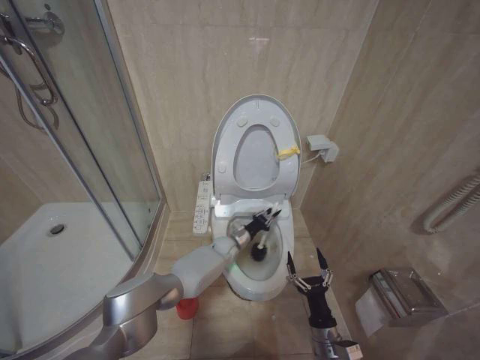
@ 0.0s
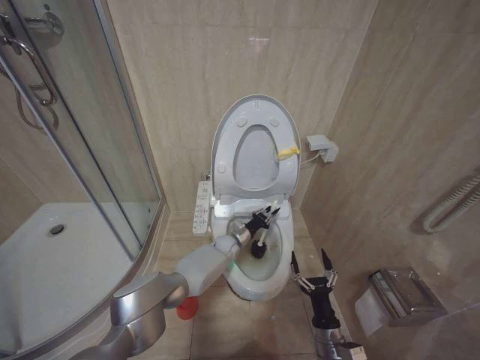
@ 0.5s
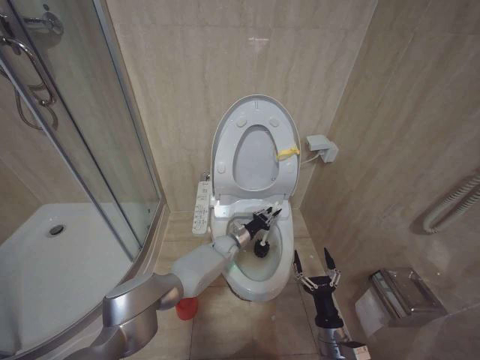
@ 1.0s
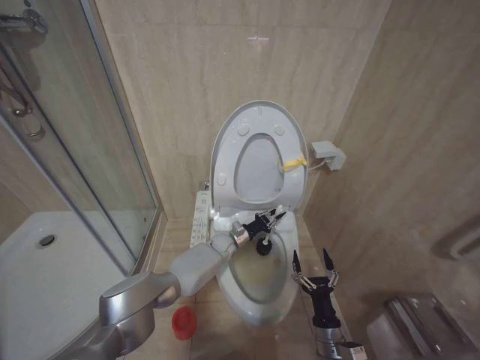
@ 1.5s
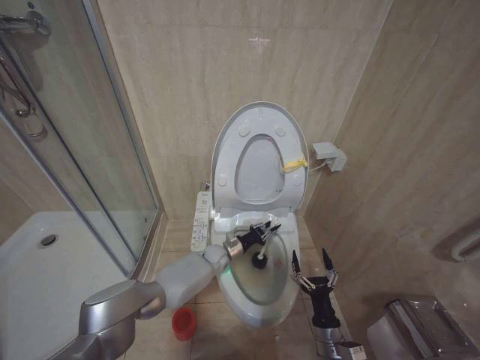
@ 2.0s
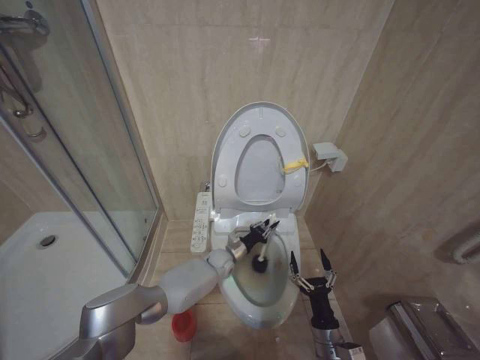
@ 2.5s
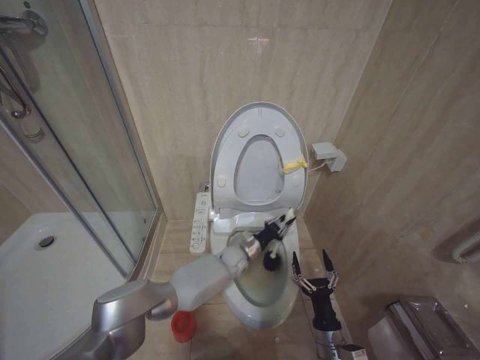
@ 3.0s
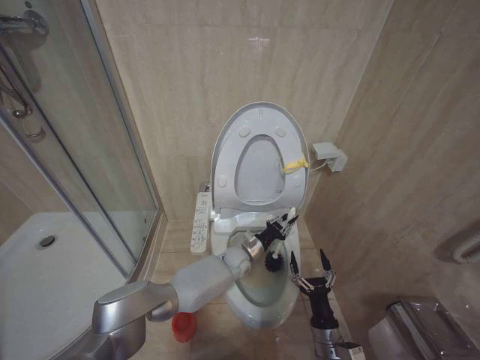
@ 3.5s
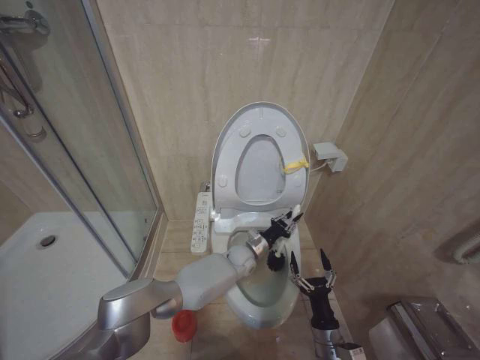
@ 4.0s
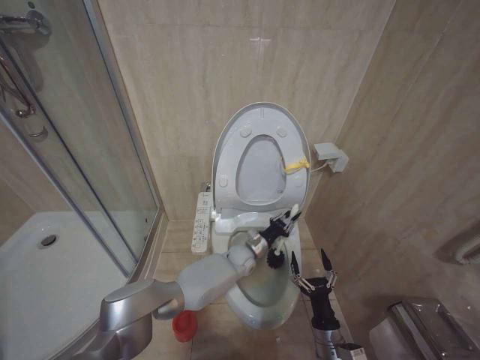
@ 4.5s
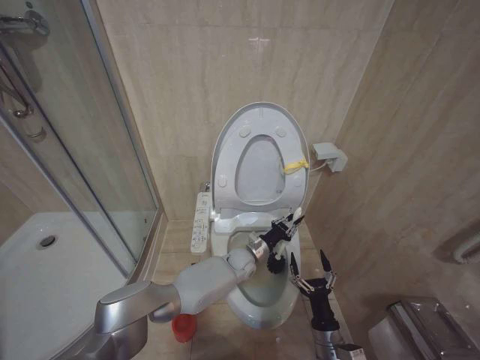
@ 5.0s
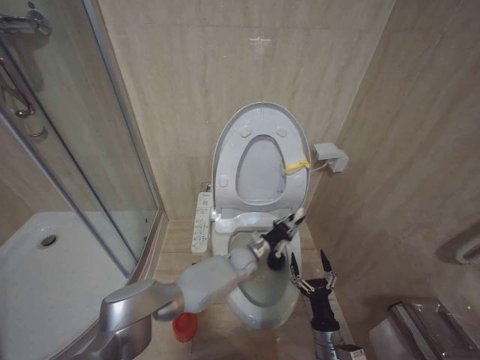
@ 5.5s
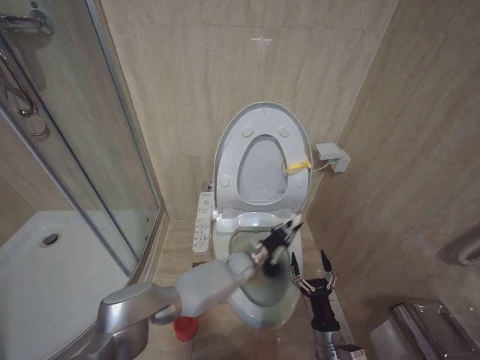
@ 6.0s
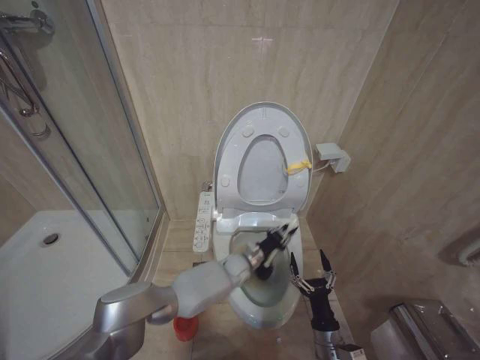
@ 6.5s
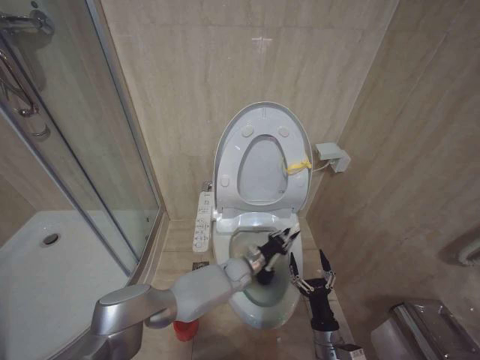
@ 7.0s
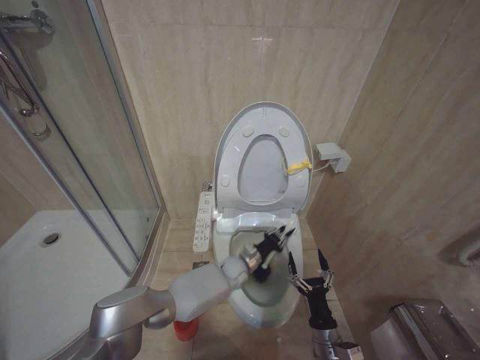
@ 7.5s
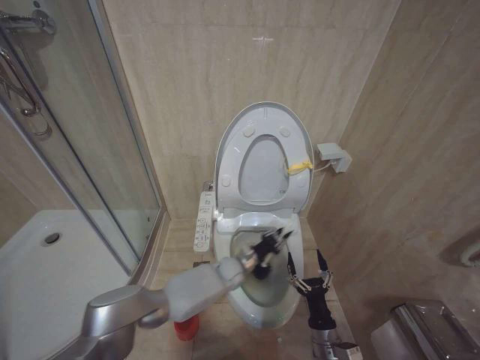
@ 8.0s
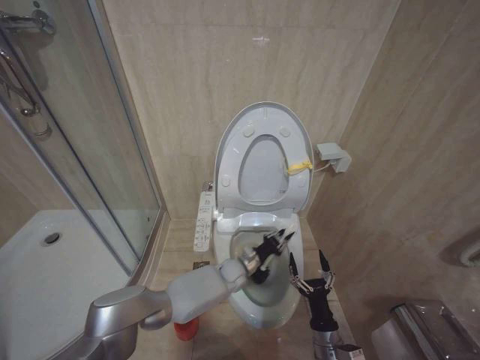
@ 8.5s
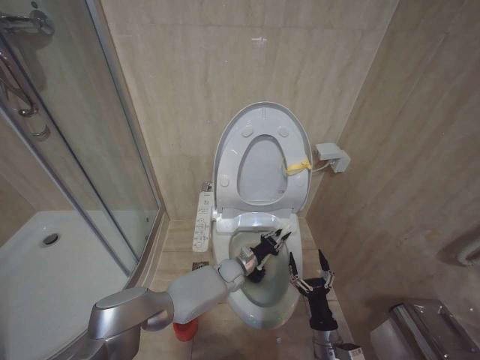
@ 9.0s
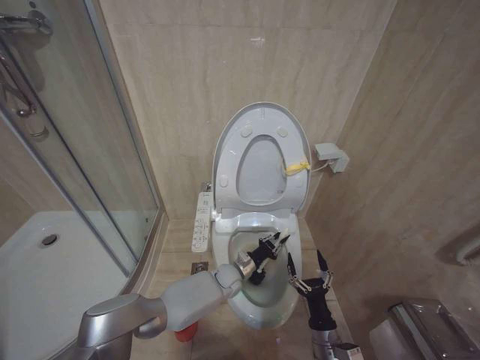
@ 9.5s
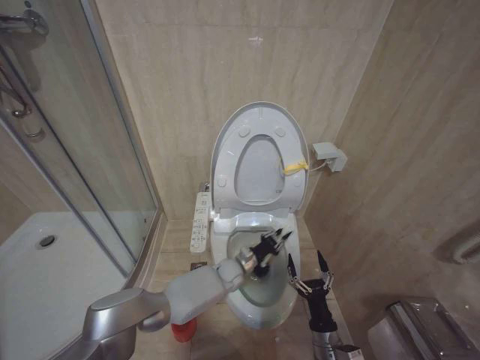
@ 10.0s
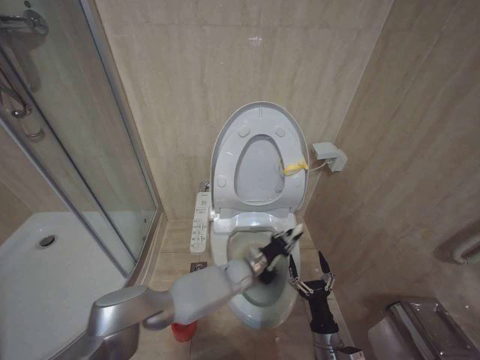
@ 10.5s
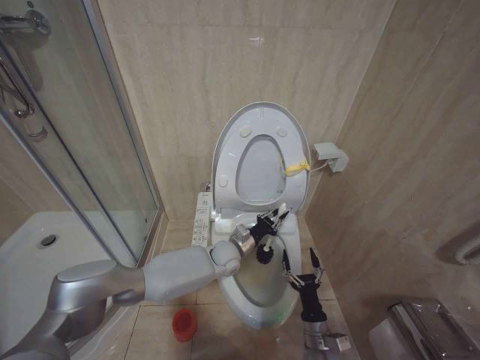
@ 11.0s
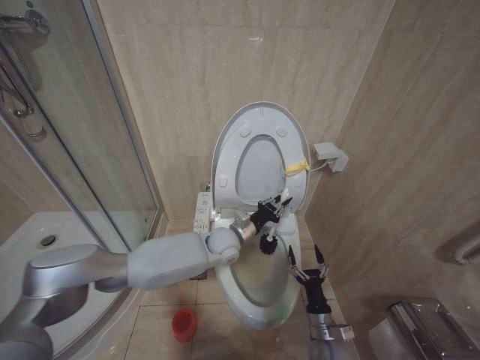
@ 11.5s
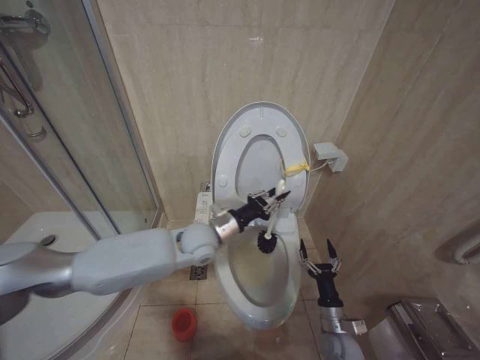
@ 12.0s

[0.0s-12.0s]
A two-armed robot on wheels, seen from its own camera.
Task of the whole recording: Open the toilet lid, clean the toilet bowl with a toilet brush, close the toilet lid, and flush.
0.0s to 2.0s: The grippers move only a little.
2.0s to 4.0s: The left gripper goes roughly 5 cm to the right.
4.0s to 6.0s: The grippers move only a little.
6.0s to 8.0s: There are only small adjustments of the grippers.
10.0s to 12.0s: The right gripper changes place by about 5 cm. The left gripper is displaced upward by about 20 cm.

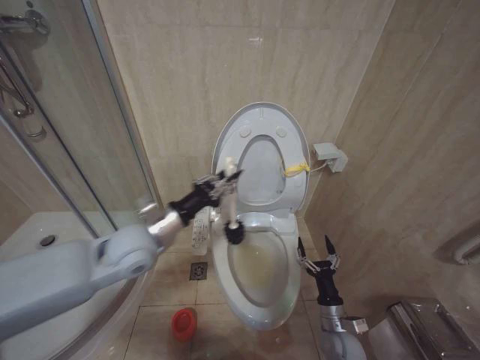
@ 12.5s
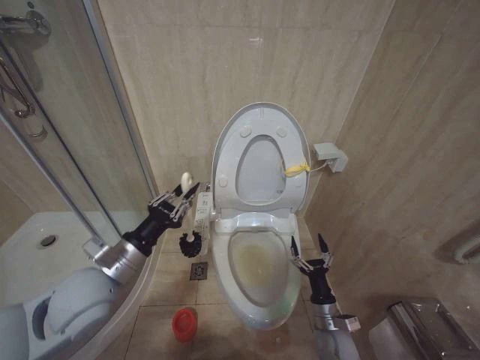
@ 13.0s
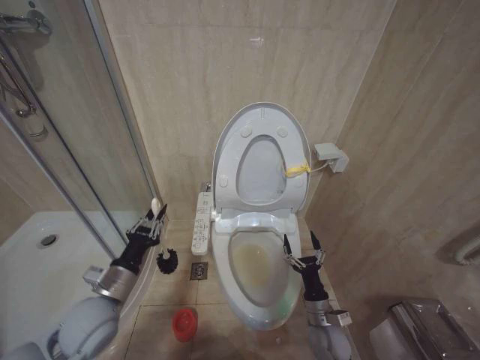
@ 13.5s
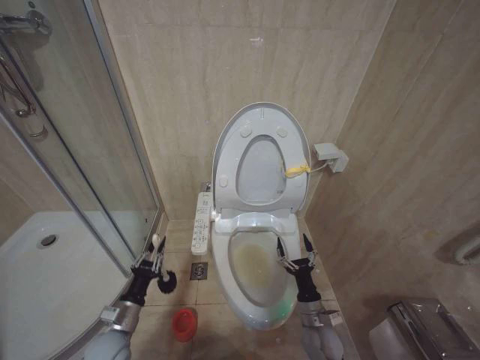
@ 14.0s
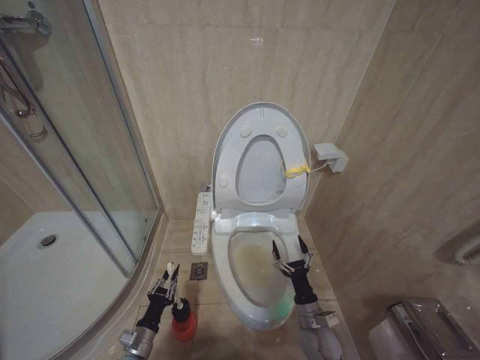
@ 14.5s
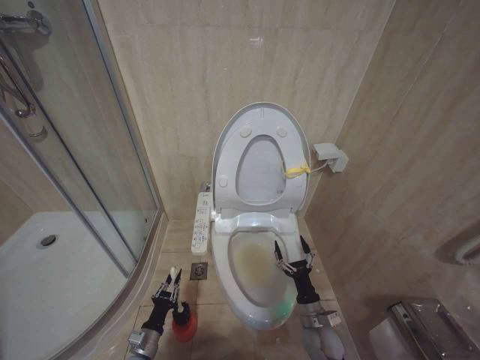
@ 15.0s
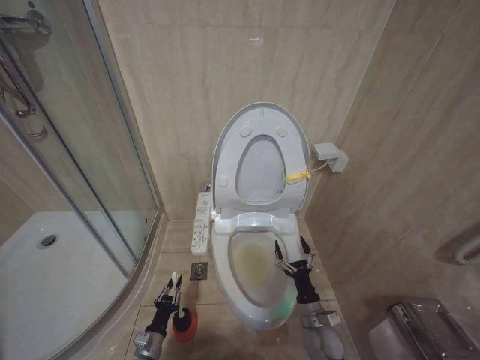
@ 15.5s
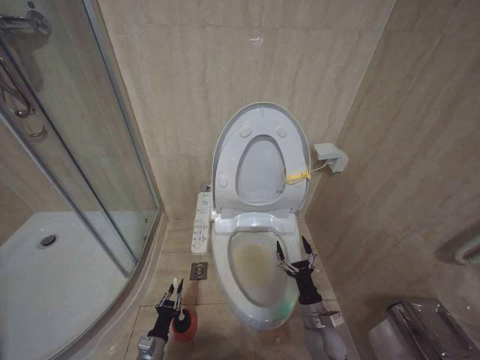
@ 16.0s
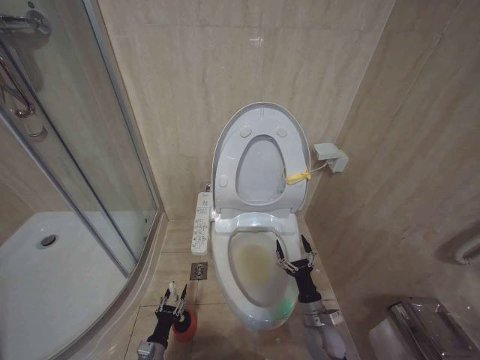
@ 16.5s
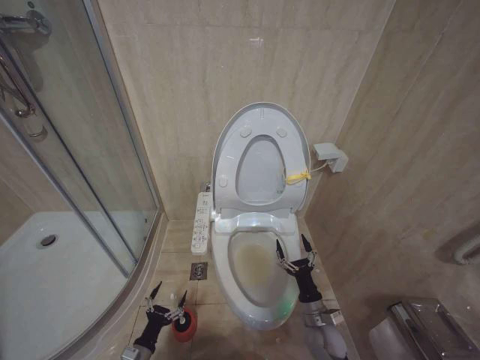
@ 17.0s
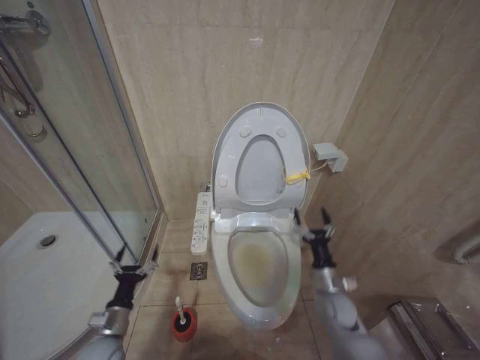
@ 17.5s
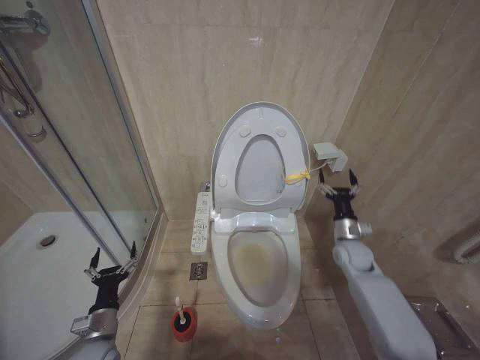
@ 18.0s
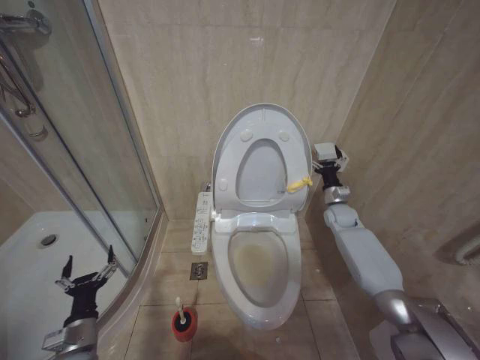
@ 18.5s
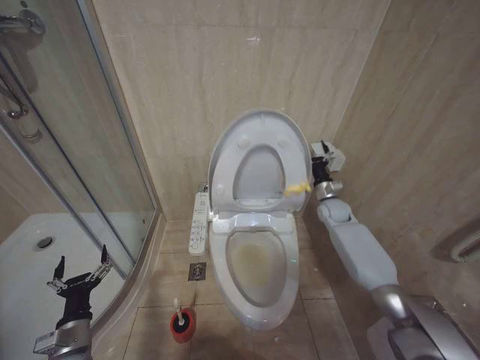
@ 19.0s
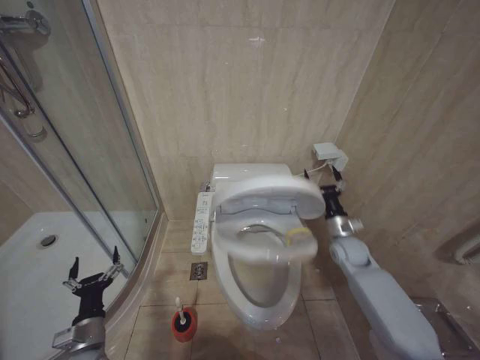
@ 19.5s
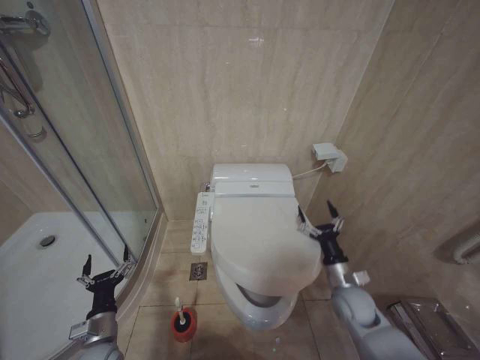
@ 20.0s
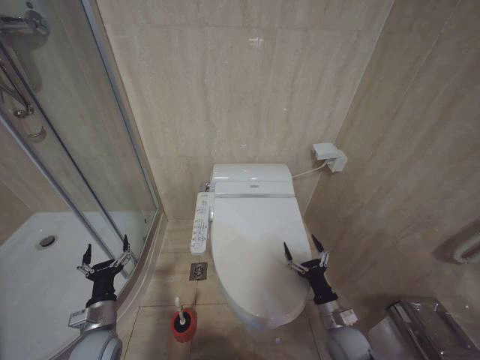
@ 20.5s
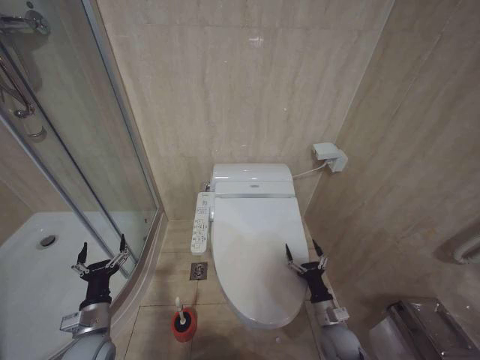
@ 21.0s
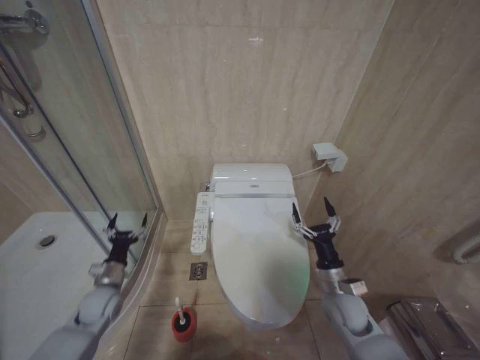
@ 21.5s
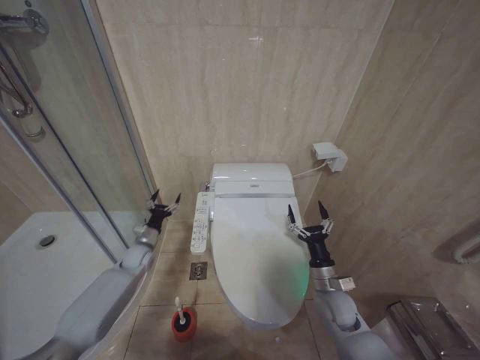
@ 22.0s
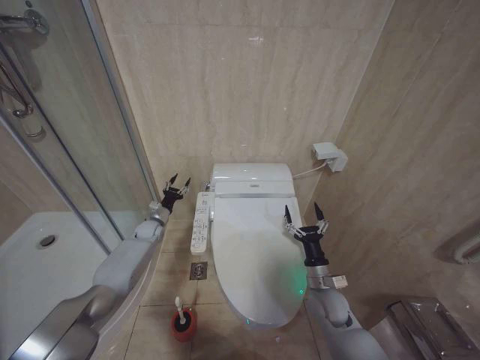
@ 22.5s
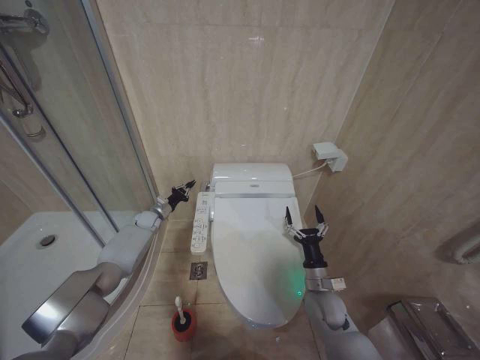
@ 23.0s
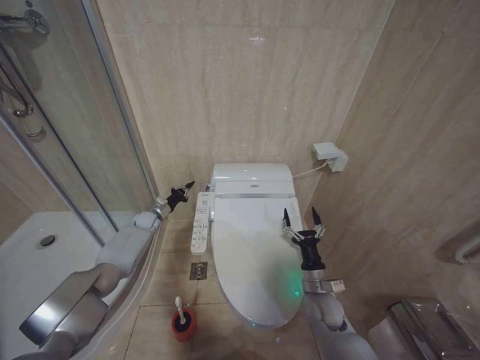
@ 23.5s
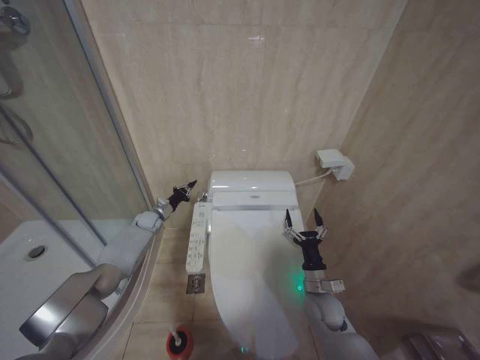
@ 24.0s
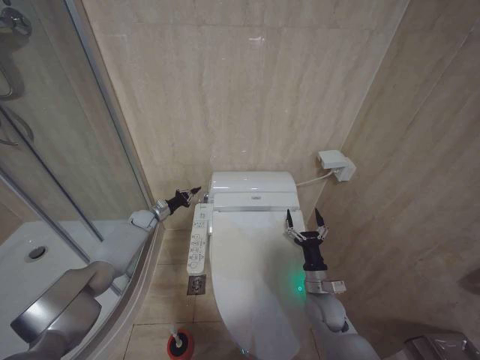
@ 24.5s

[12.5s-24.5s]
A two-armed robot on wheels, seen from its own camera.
Task of the whole recording: Open the toilet lid, clean the toilet bowl with a toilet brush, close the toilet lid, and flush.
12.5s to 14.5s: The right gripper changes place by about 5 cm. Meanwhile the left gripper moves downward, roughly 35 cm.
14.5s to 16.5s: The left gripper shifts roughly 10 cm downward.
16.5s to 18.5s: The left gripper shifts some 20 cm upward and to the left, and opens its fingers, while the right gripper heads forward, upward and to the right, covering roughly 35 cm.
18.5s to 20.5s: The right gripper shifts some 35 cm backward and downward.
20.5s to 22.5s: The right gripper travels forward and upward by approximately 10 cm. Meanwhile the left gripper moves forward, some 30 cm.
22.5s to 24.5s: The left gripper ends up about 5 cm from where it was, and closes its fingers.

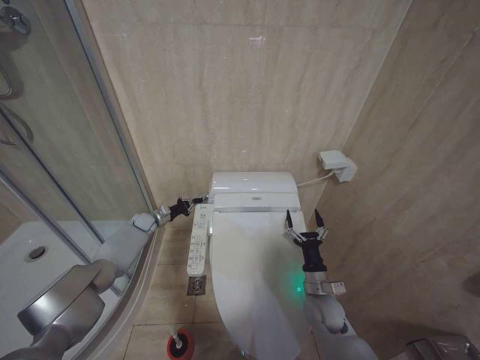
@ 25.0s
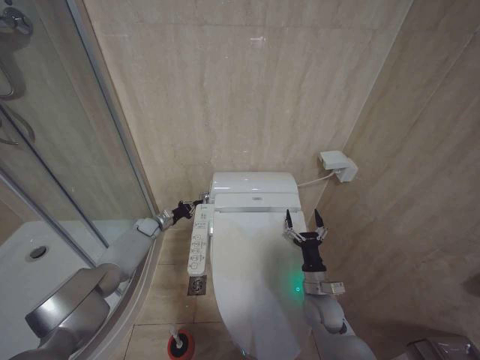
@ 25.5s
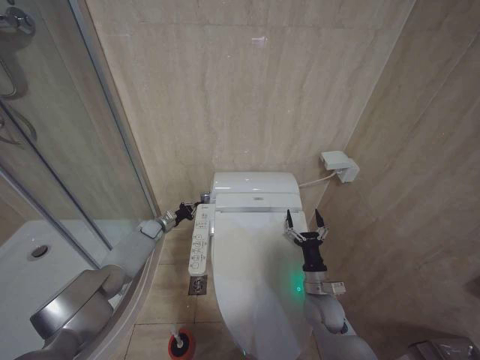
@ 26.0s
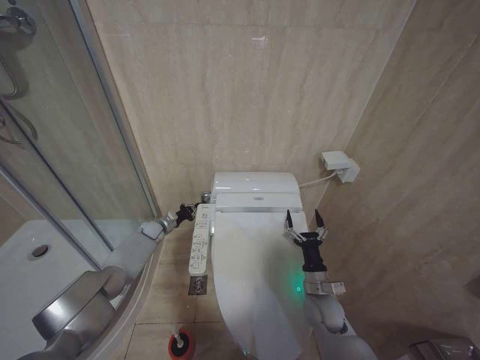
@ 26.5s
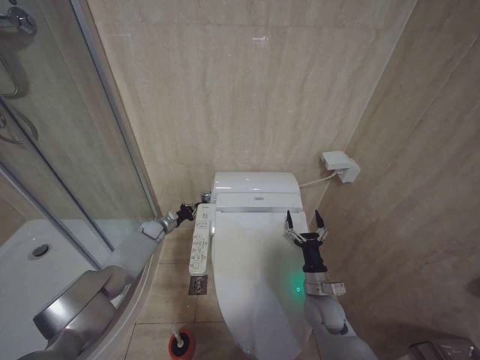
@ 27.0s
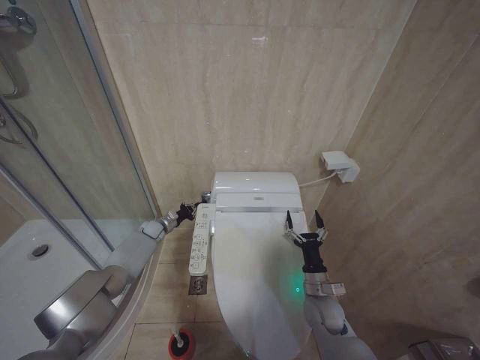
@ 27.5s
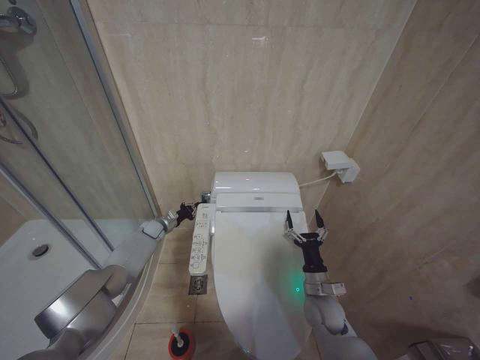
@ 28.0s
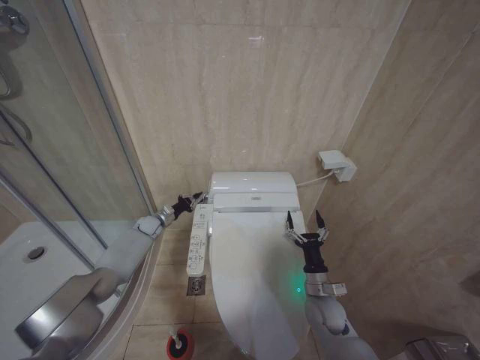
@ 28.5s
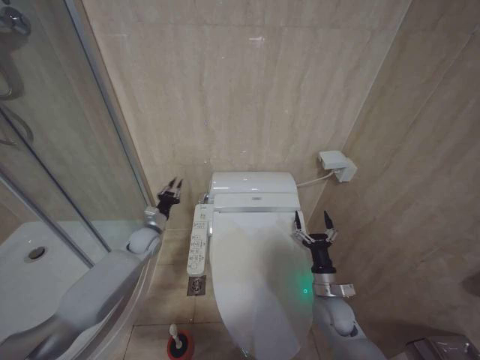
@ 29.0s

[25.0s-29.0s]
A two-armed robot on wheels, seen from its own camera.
Task of the whole recording: Open the toilet lid, clean the toilet bowl with a toilet brush, close the toilet lid, and flush.
25.0s to 27.0s: The grippers move only a little.
27.0s to 29.0s: The left gripper shifts roughly 10 cm backward and upward.
